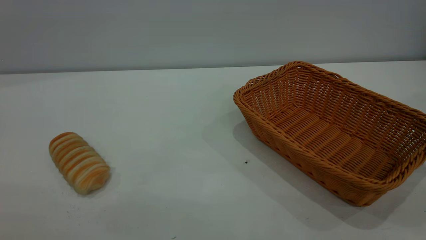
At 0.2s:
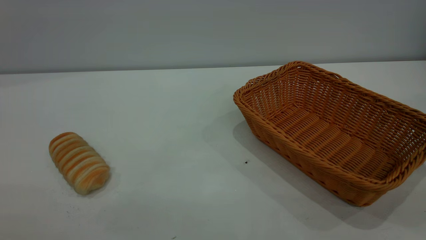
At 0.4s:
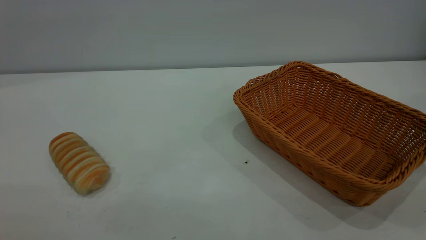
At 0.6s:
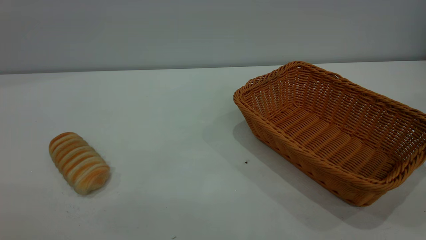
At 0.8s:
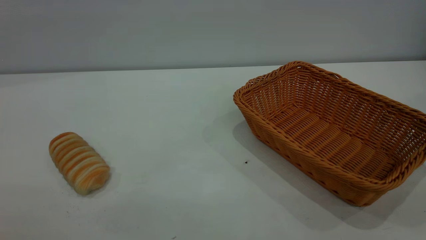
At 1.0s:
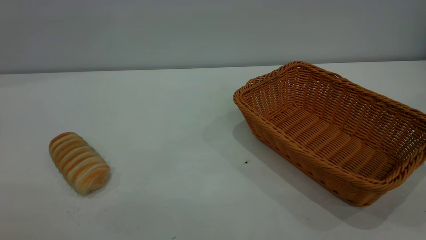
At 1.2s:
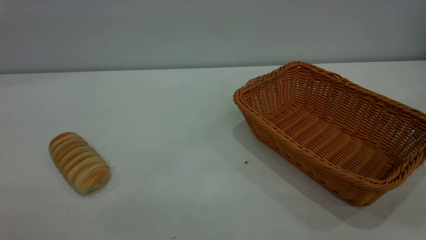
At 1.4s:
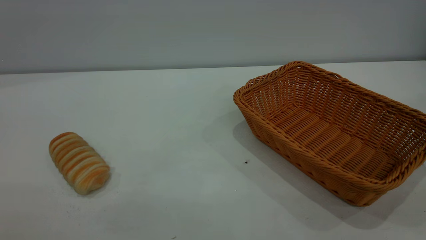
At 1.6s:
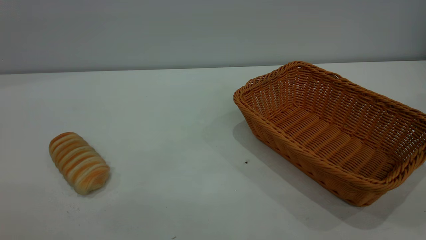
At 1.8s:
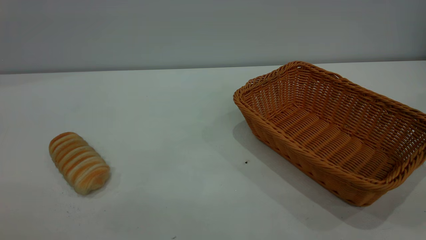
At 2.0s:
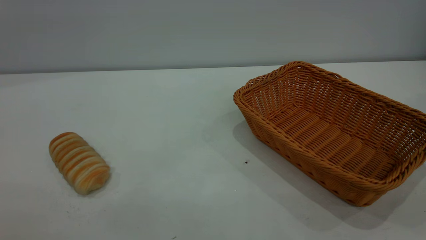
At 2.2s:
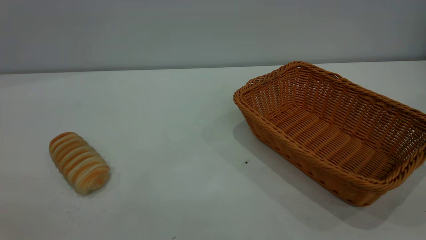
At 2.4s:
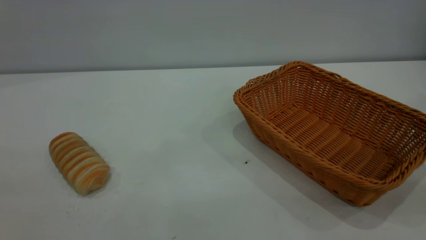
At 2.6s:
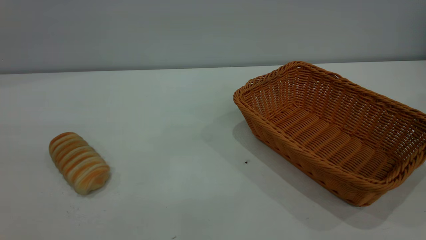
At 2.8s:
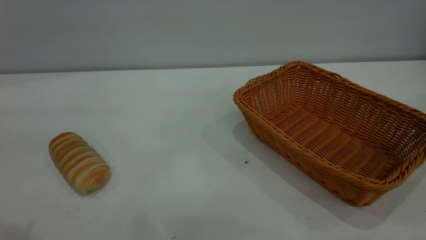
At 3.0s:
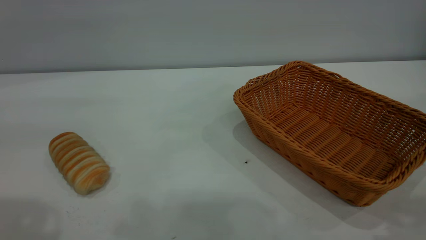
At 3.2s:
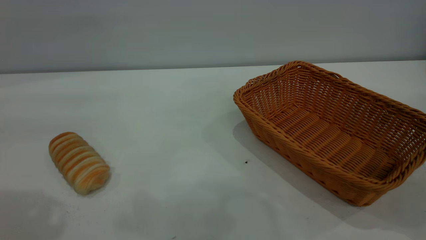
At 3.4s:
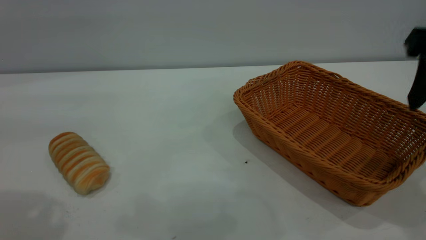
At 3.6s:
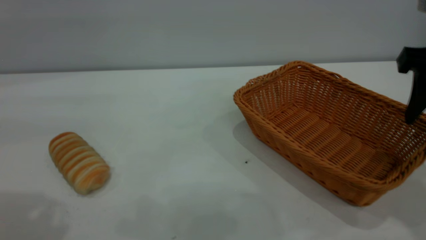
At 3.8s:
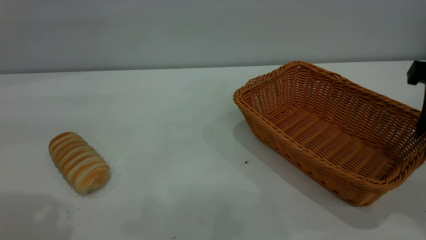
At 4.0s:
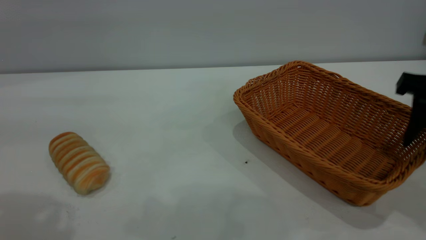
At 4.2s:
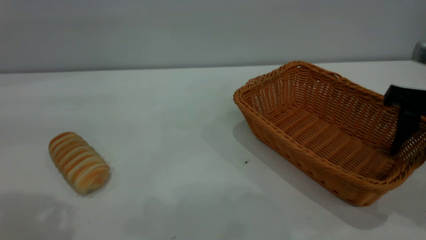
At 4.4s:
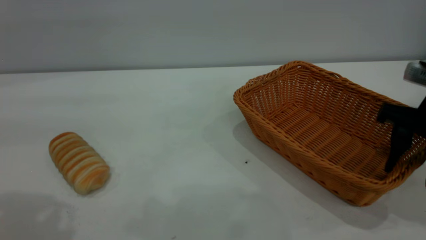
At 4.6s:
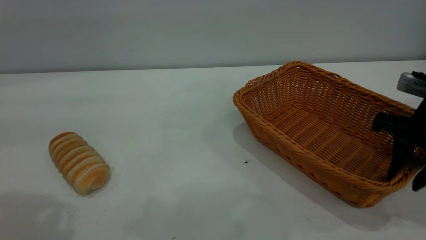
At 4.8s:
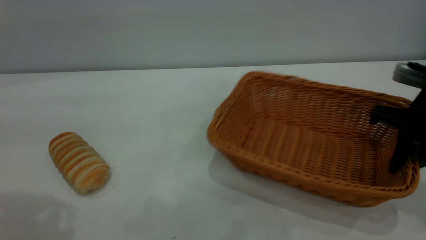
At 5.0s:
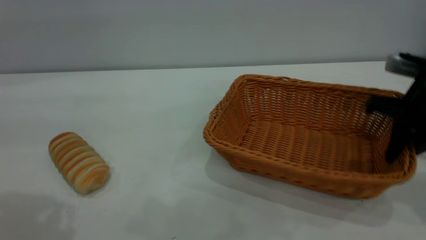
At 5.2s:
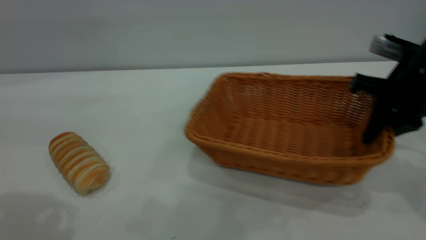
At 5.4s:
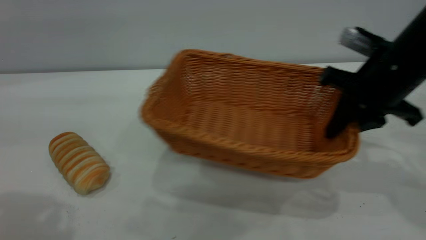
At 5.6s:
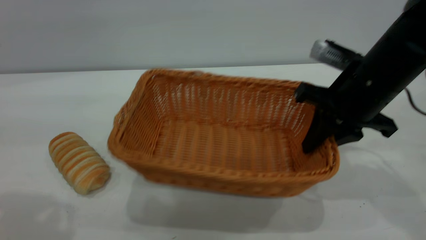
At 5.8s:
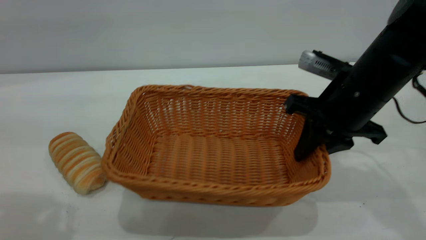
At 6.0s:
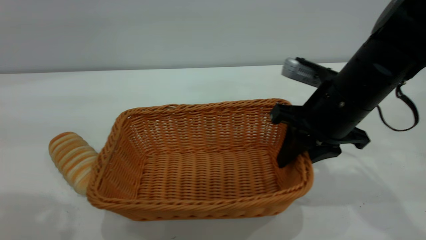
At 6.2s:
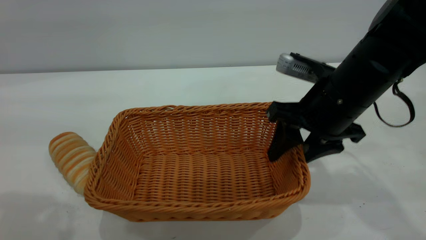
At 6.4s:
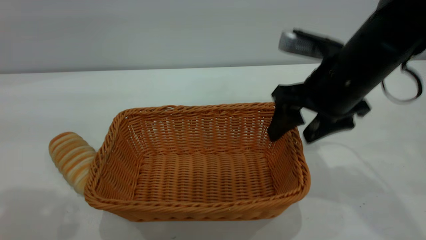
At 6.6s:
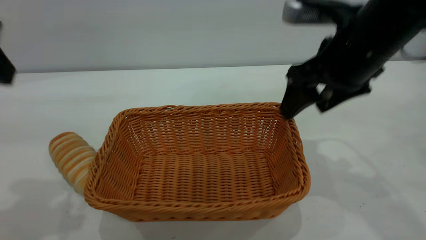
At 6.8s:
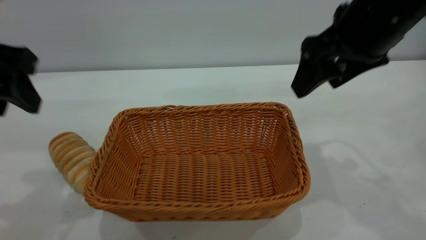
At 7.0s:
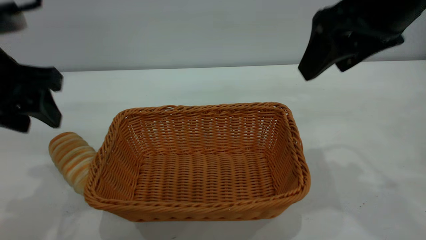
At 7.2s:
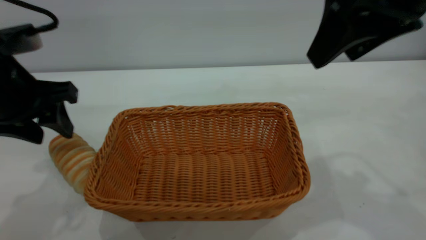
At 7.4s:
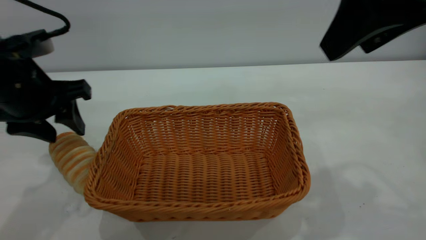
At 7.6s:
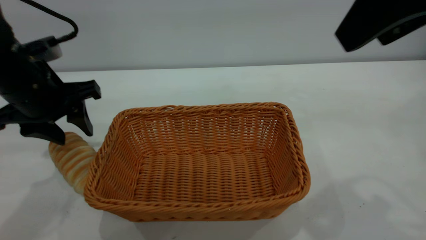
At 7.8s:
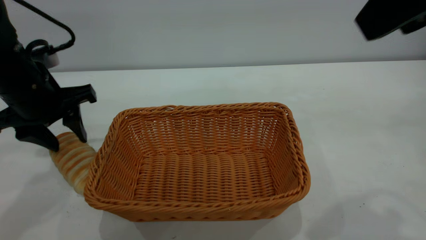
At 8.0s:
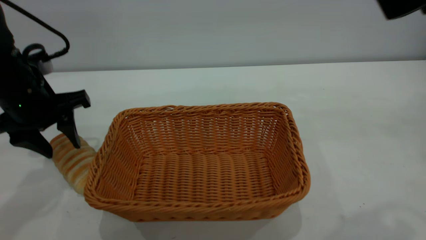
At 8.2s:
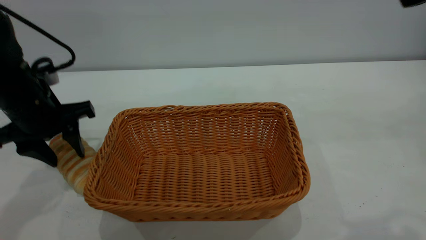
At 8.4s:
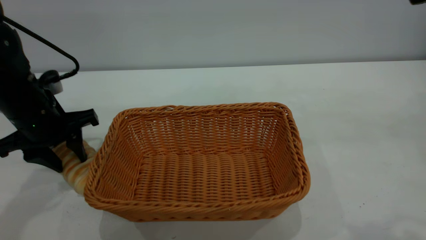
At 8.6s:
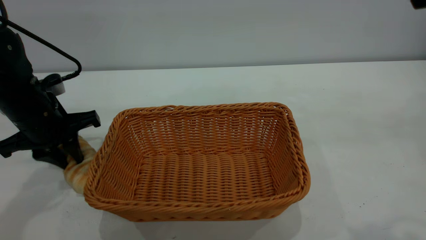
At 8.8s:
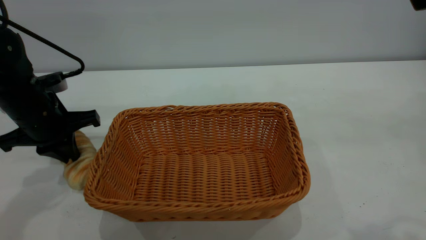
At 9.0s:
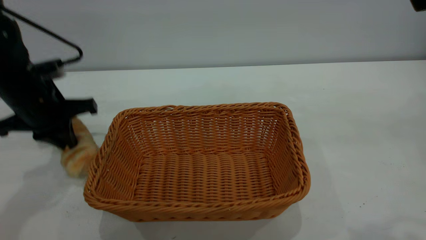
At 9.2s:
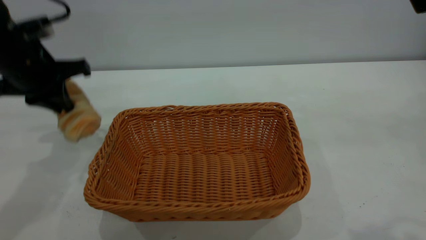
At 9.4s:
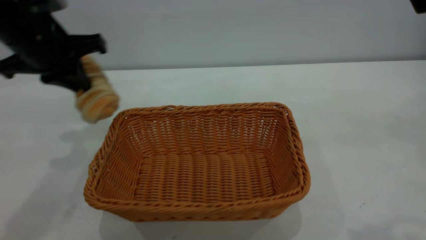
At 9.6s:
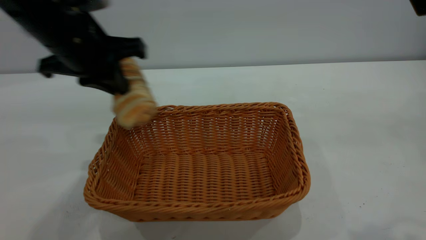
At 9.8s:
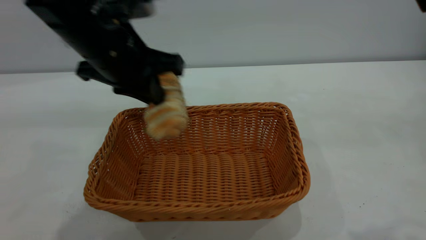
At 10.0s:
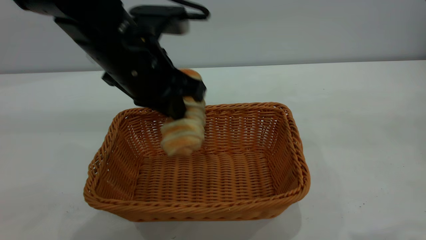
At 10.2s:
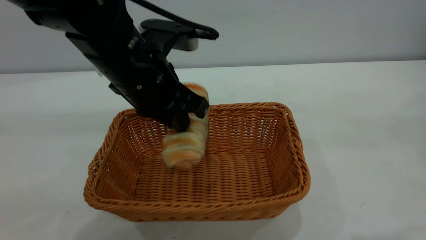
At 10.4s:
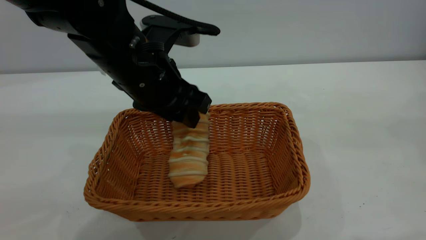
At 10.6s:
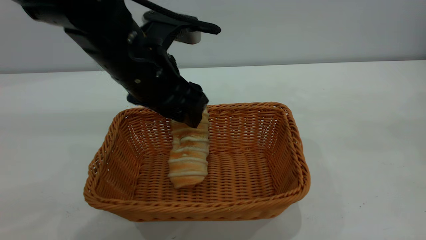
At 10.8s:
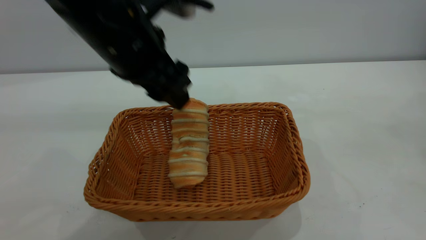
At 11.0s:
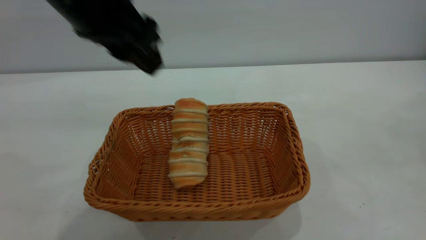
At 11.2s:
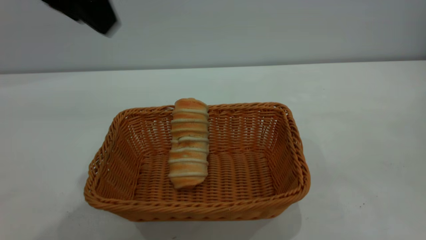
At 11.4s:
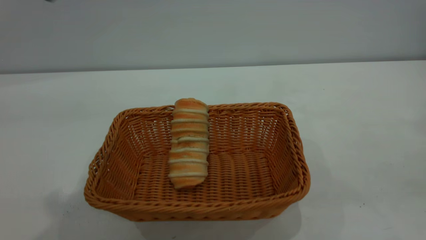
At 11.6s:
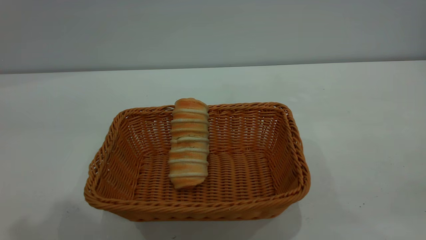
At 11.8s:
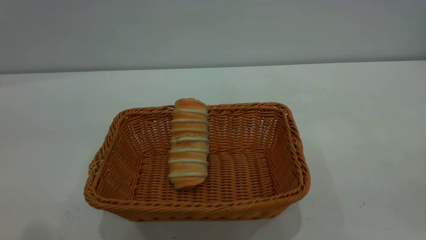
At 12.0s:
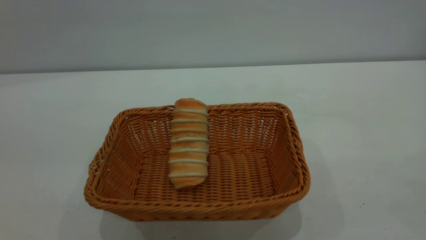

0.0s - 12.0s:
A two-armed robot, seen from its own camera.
Task of the whole recording: One hand grasps the yellow basket and places it in the middle of the table, while the other hand picks up the long bread and puts it into the yellow basket.
Step, 0.0s - 6.6s: Move the basket to the center of view.
Step, 9.4s - 10.8s: place the bread into the basket.
0.0s - 1.6s: The two grippers keep their place.
3.0s - 4.4s: The right gripper moves downward and forward, approximately 20 cm.
4.4s - 6.0s: The right gripper is displaced to the left by about 10 cm, and closes.
6.0s - 7.6s: The right gripper shifts approximately 25 cm upward and backward, and opens up; the left gripper is displaced downward and forward by some 20 cm.
7.6s - 9.0s: The left gripper closes. The right gripper is displaced backward by some 5 cm.
9.0s - 10.4s: The left gripper goes approximately 20 cm to the right, and opens.
10.4s - 12.0s: The right gripper shifts approximately 15 cm backward, to the right and downward; the left gripper shifts roughly 35 cm upward, backward and to the left.

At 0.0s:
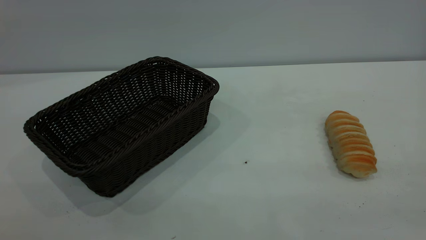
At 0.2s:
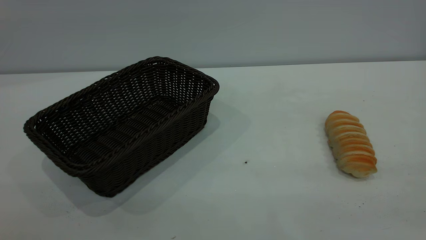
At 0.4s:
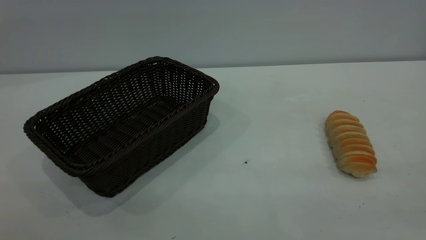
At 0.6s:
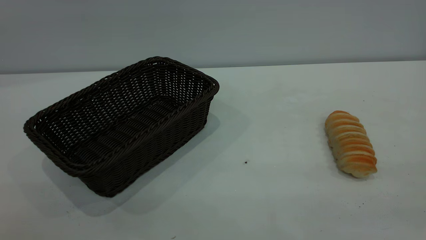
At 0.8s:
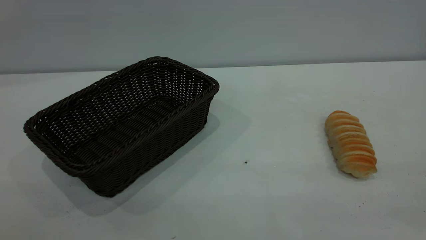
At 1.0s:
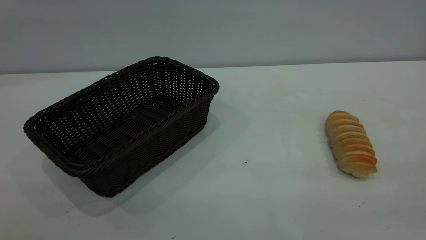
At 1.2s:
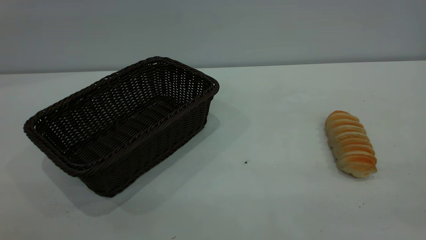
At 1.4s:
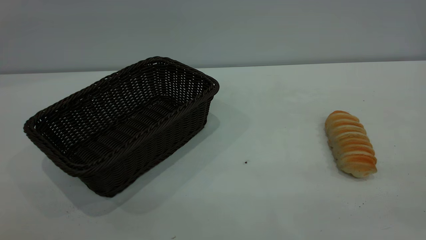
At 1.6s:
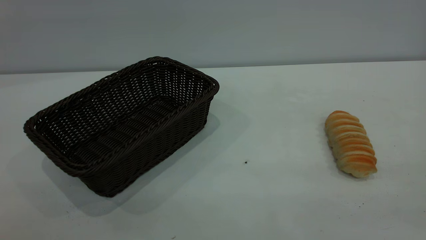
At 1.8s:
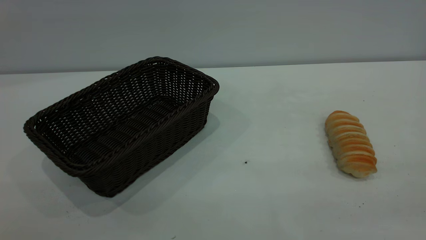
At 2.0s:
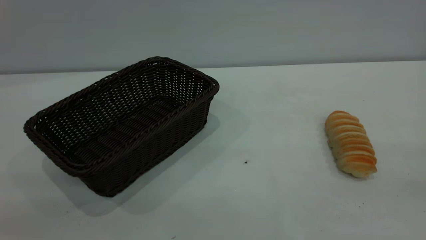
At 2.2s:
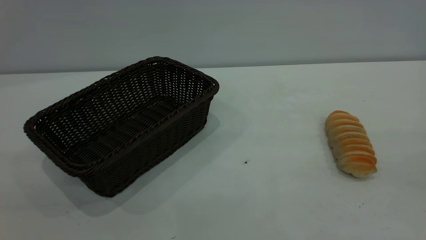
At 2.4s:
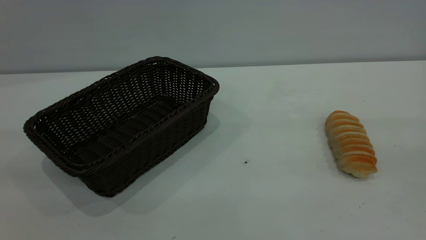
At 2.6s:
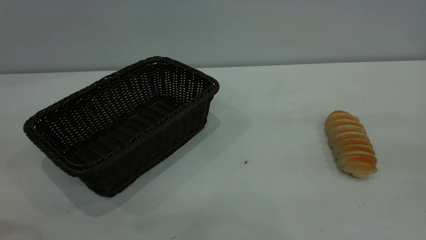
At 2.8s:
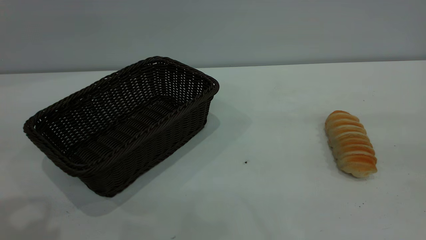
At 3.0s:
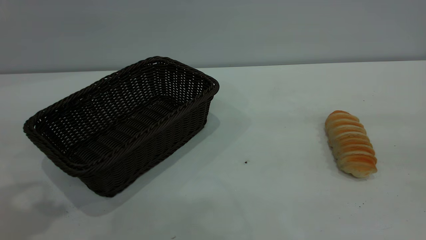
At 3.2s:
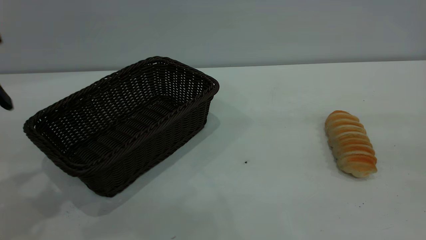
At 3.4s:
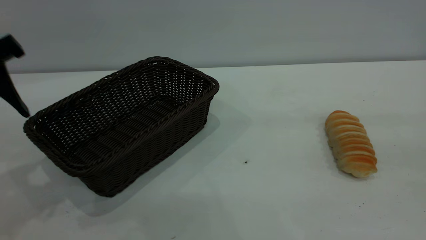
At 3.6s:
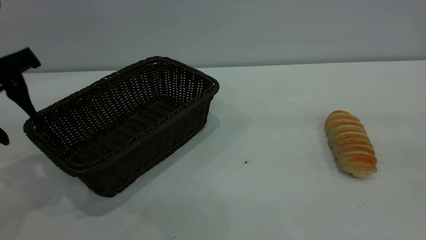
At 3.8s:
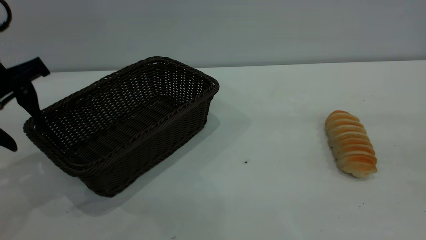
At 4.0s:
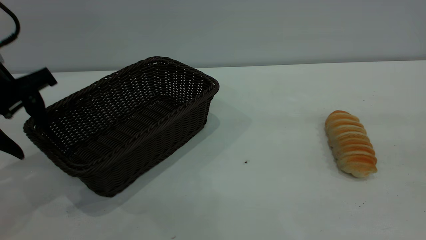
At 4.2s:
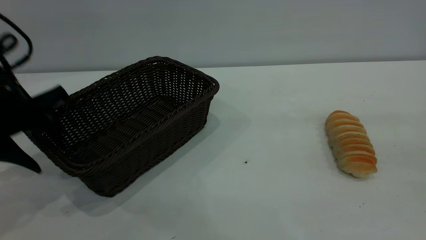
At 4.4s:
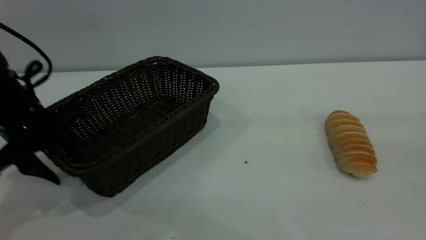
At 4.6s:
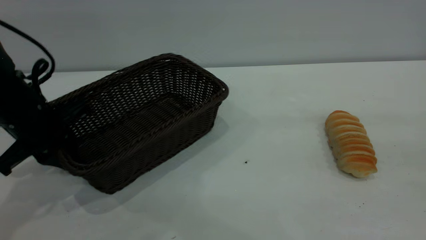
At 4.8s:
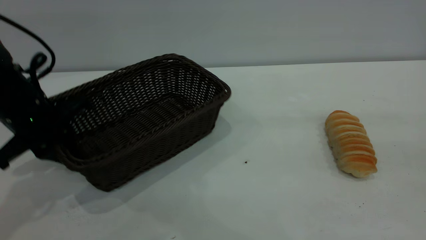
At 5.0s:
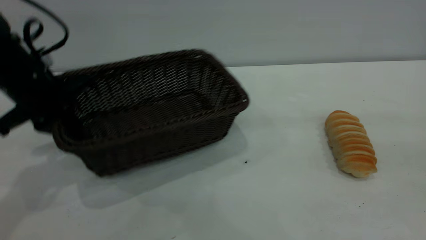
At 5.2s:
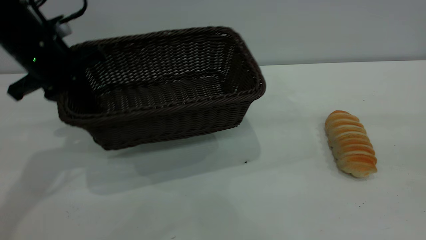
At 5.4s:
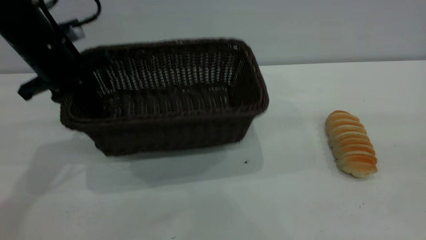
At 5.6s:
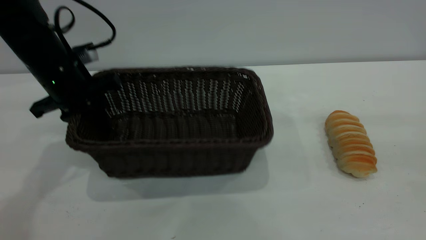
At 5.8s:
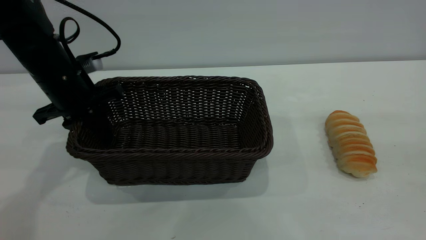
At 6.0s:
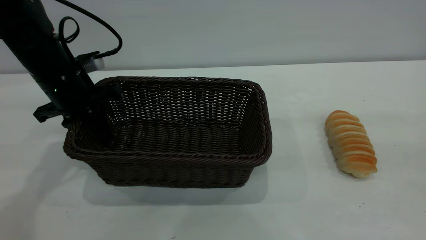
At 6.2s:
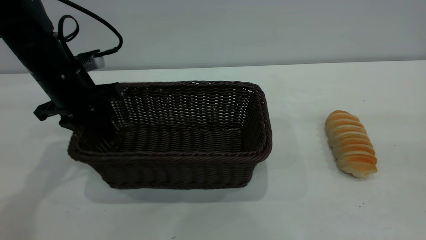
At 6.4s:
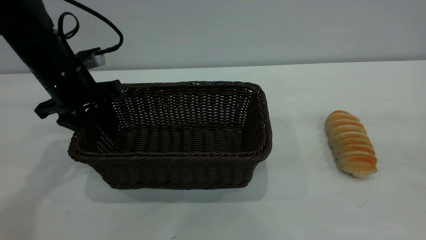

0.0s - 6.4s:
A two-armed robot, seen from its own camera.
Task of the whole recording: One hand grasps the black basket and places it in the middle of the table, while the other hand picks up the long bread and puts it into the black basket.
0.0s - 1.6s: Neither gripper changes place.
3.2s - 4.8s: The left gripper travels downward and forward by some 15 cm, and closes.
4.8s - 6.4s: The left gripper is displaced forward by about 5 cm, and opens up.
